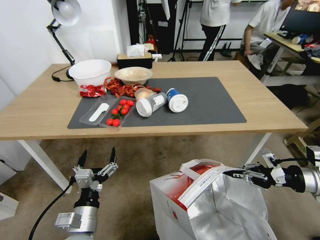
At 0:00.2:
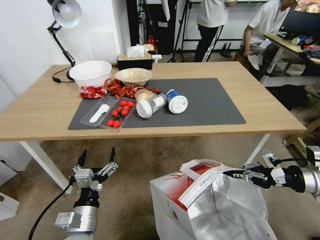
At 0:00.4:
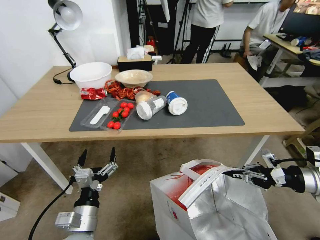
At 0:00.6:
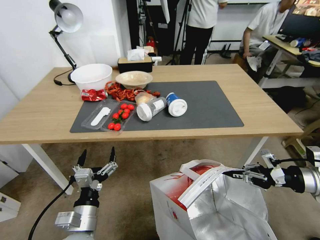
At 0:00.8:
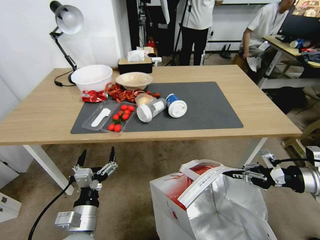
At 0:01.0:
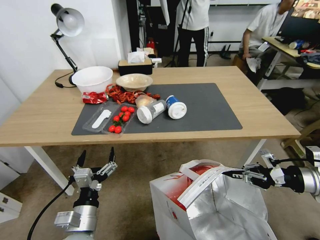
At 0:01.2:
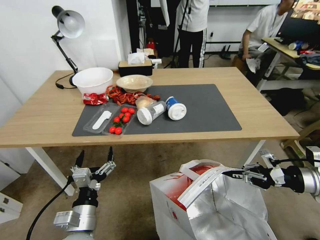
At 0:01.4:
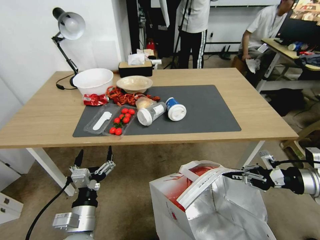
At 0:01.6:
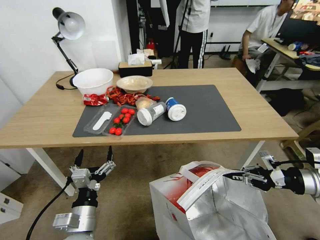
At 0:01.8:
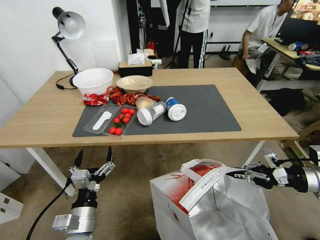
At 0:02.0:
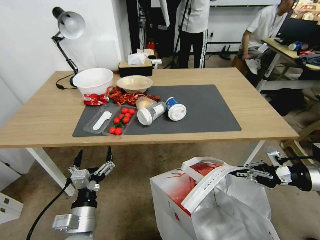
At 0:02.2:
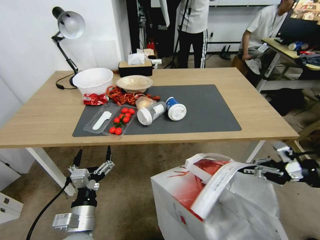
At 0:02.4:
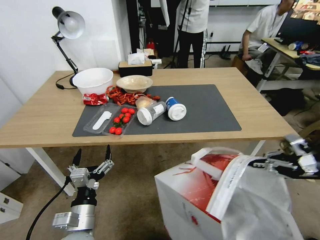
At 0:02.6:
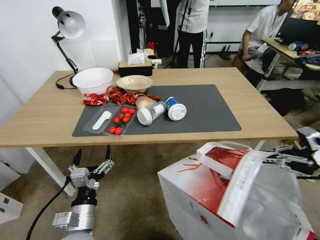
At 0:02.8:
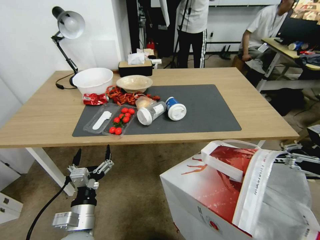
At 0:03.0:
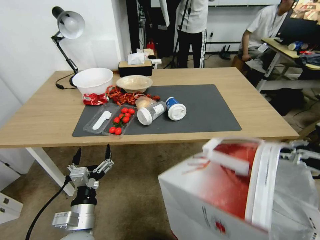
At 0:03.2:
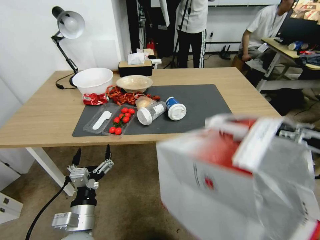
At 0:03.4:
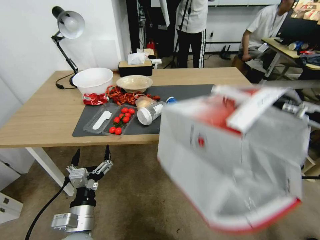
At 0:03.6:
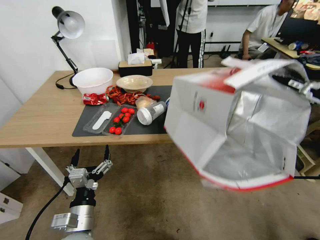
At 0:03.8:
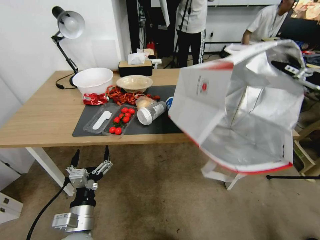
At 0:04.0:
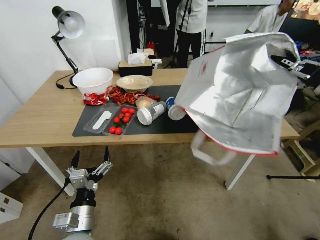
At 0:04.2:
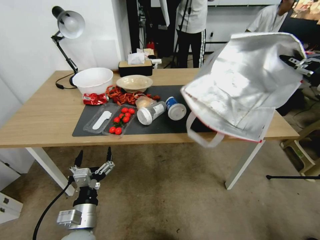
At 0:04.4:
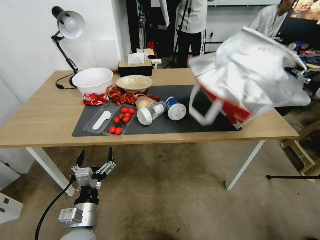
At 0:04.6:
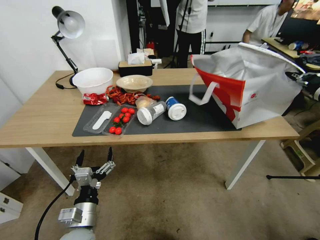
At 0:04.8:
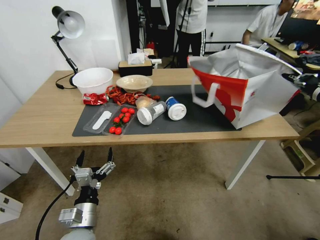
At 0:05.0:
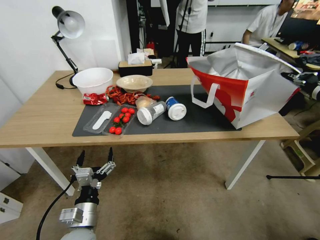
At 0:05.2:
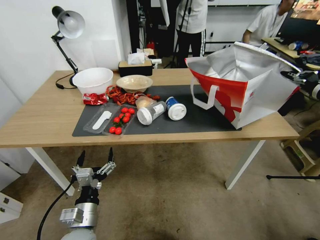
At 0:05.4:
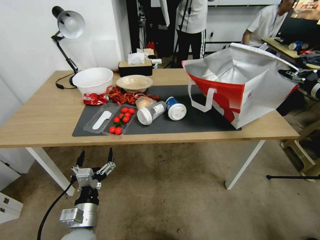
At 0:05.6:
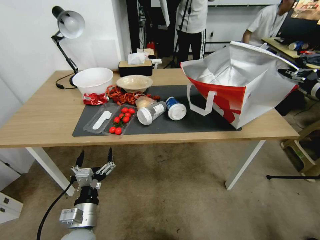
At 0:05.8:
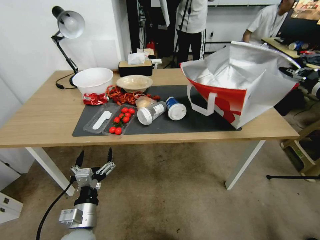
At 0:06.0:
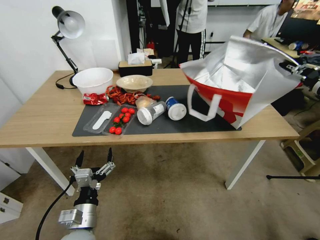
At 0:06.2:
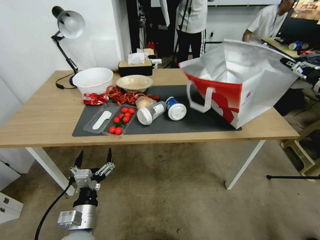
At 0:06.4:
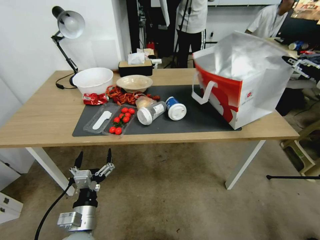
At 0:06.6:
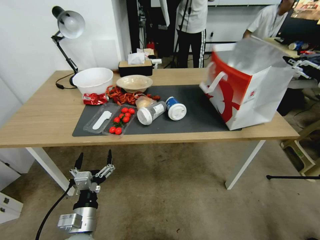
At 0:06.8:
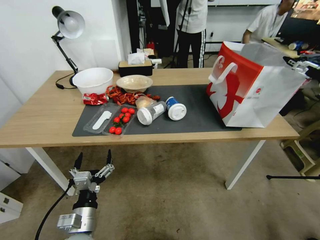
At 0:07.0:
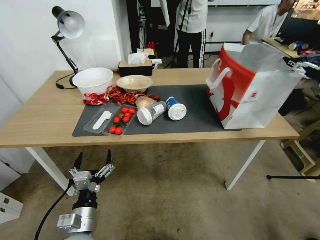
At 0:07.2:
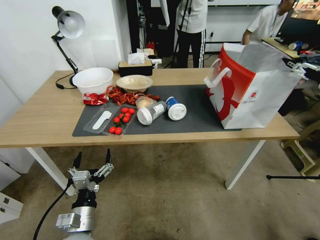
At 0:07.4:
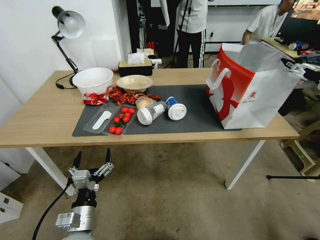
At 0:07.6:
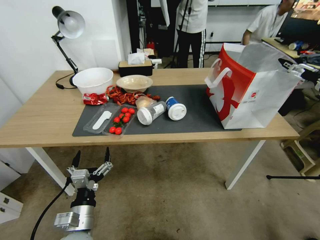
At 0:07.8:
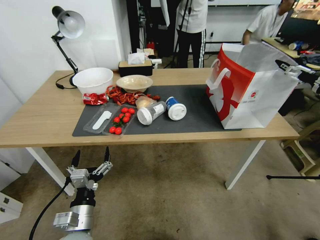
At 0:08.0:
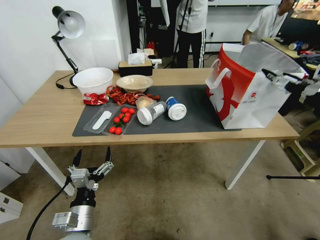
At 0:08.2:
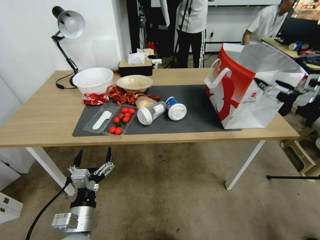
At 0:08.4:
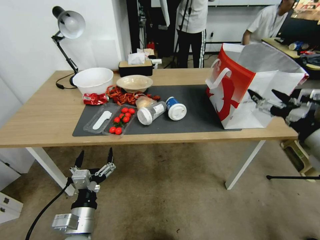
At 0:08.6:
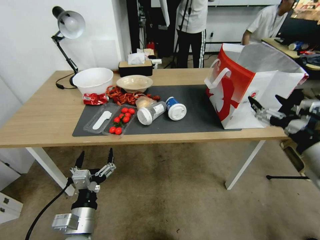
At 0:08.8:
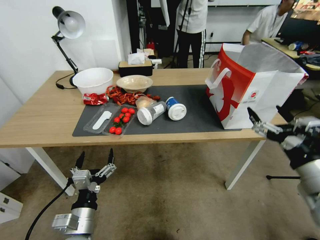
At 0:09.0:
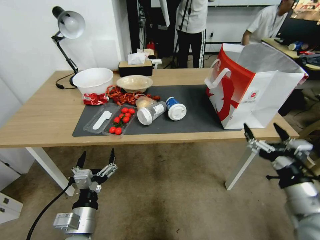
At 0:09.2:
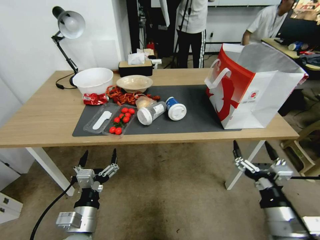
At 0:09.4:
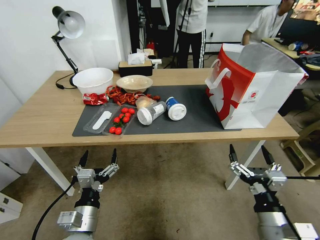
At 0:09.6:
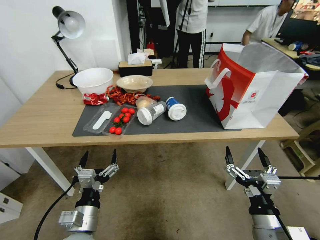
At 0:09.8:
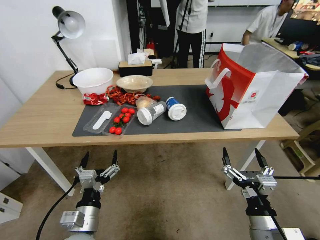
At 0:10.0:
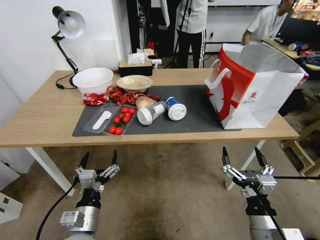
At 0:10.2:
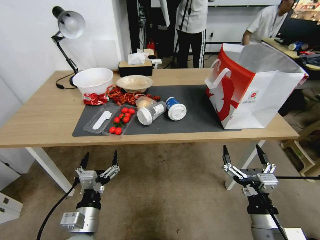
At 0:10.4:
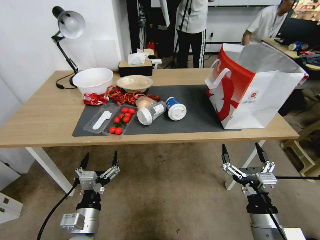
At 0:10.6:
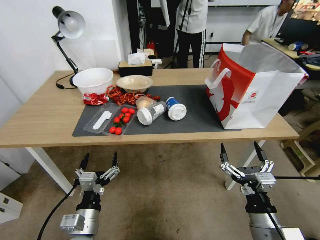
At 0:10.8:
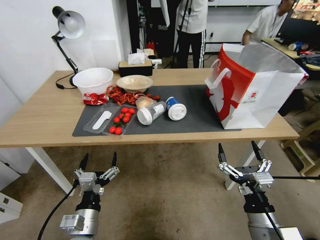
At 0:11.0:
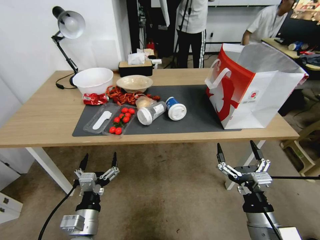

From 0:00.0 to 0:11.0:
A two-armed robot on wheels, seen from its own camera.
Task of the whole recording: Pick up the food delivery bag from the floor and place it on the table.
From 0:01.6 to 0:03.2: The right gripper travels upward and to the right by about 15 cm.
From 0:03.2 to 0:04.8: The right gripper moves to the left, about 5 cm.
From 0:04.8 to 0:06.2: The right gripper opens up.
From 0:06.2 to 0:07.8: The right gripper opens.
From 0:07.8 to 0:09.4: The right gripper moves downward, backward and to the left, some 35 cm.
From 0:09.4 to 0:11.0: The grippers make only small movements.

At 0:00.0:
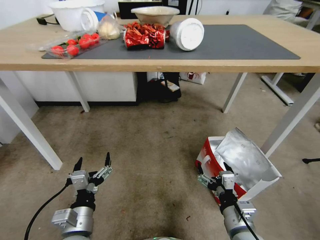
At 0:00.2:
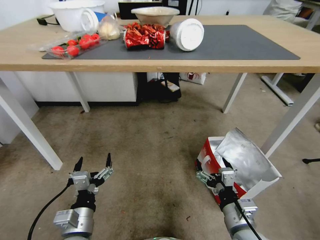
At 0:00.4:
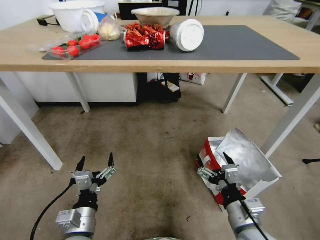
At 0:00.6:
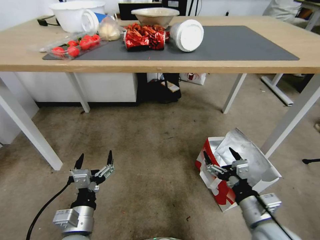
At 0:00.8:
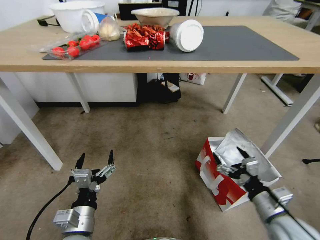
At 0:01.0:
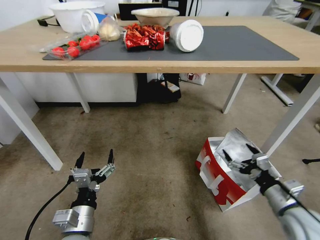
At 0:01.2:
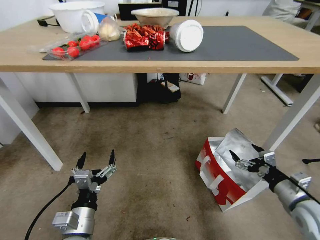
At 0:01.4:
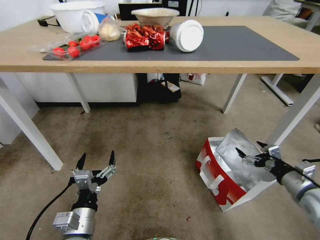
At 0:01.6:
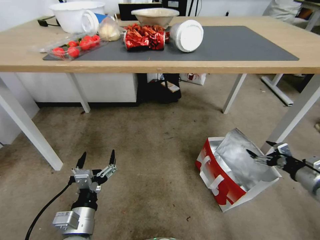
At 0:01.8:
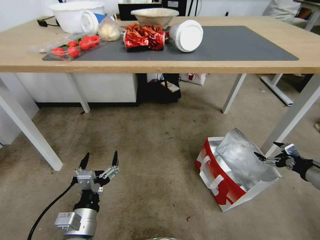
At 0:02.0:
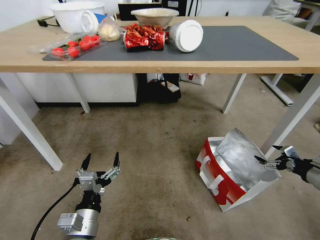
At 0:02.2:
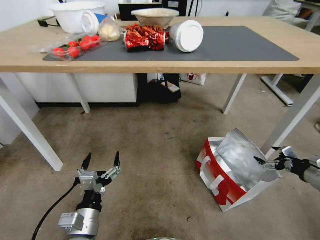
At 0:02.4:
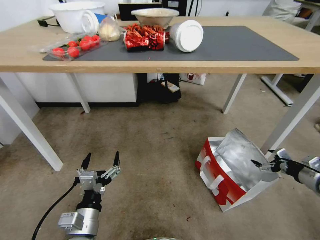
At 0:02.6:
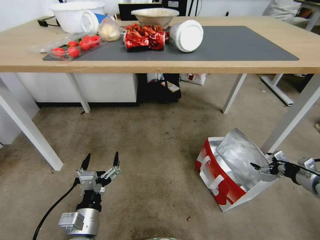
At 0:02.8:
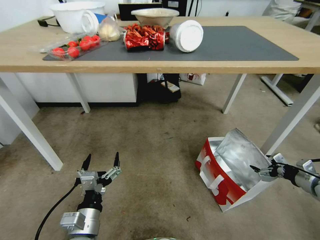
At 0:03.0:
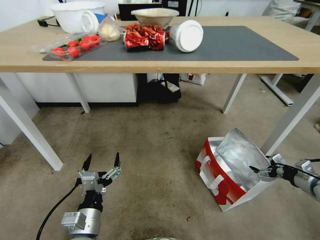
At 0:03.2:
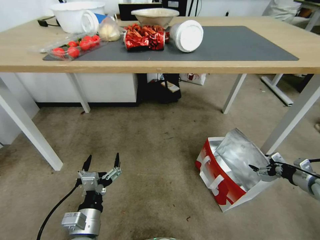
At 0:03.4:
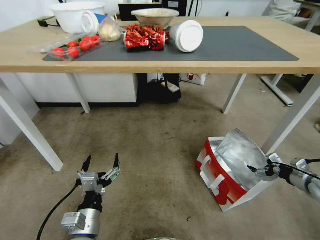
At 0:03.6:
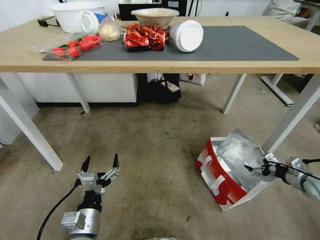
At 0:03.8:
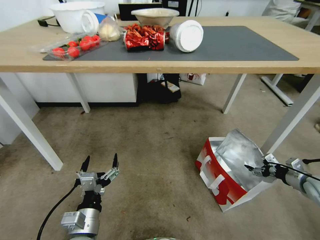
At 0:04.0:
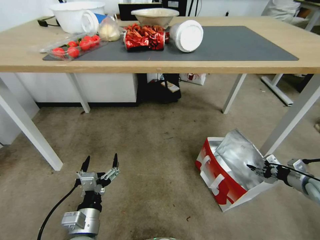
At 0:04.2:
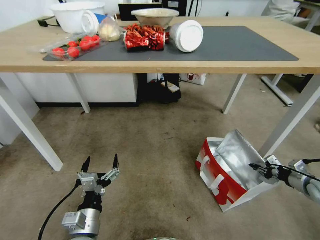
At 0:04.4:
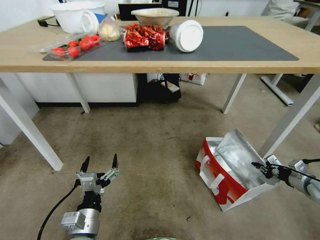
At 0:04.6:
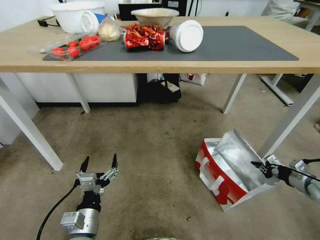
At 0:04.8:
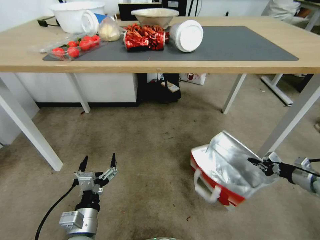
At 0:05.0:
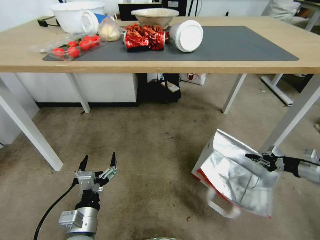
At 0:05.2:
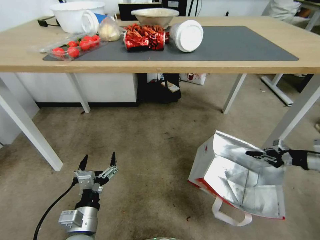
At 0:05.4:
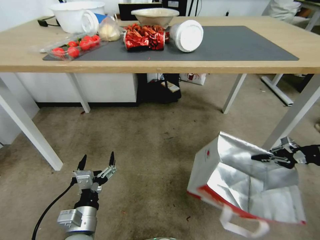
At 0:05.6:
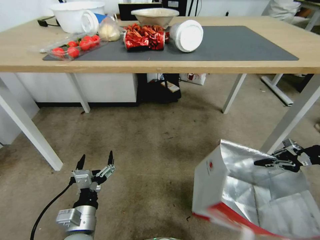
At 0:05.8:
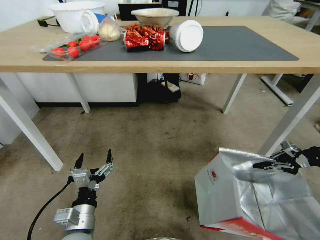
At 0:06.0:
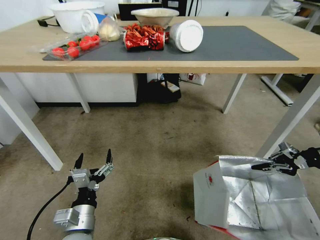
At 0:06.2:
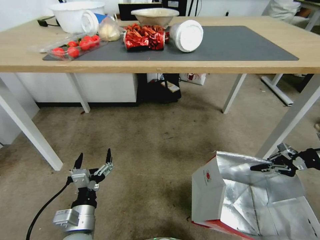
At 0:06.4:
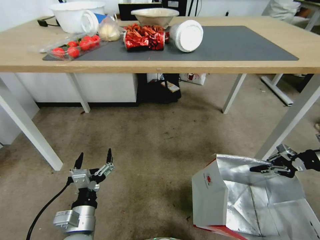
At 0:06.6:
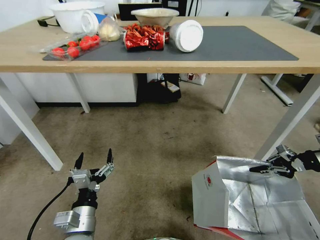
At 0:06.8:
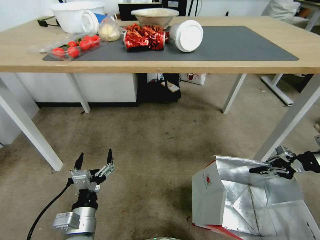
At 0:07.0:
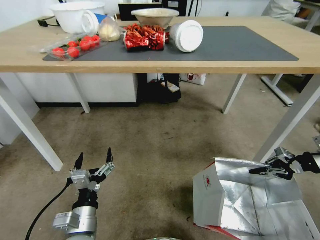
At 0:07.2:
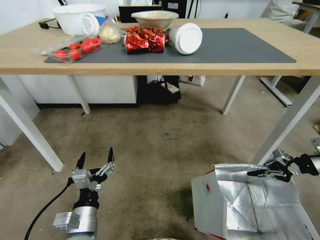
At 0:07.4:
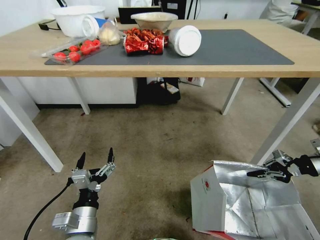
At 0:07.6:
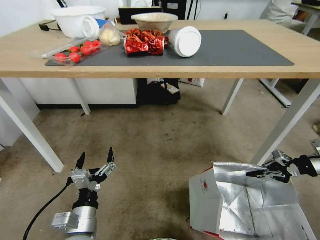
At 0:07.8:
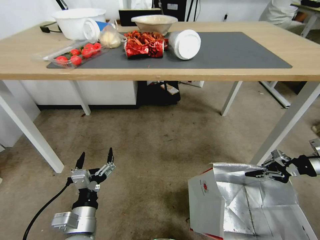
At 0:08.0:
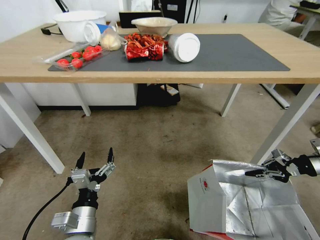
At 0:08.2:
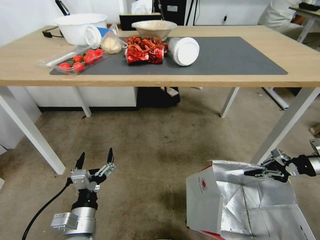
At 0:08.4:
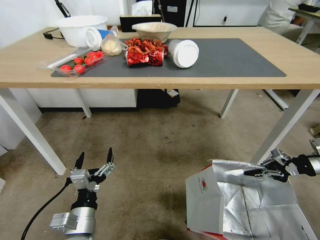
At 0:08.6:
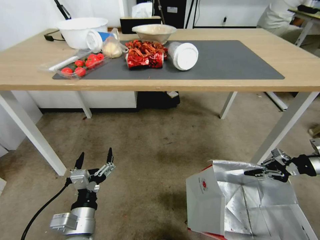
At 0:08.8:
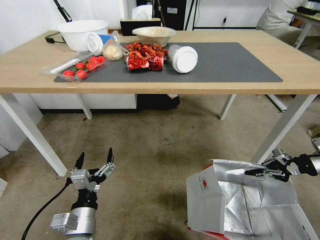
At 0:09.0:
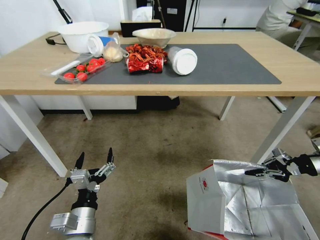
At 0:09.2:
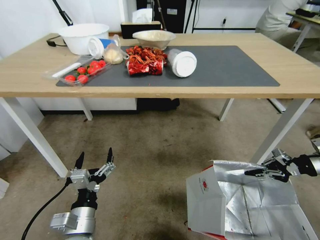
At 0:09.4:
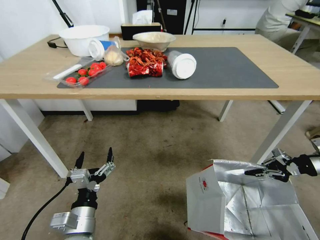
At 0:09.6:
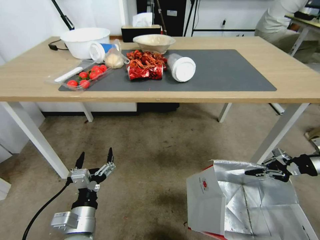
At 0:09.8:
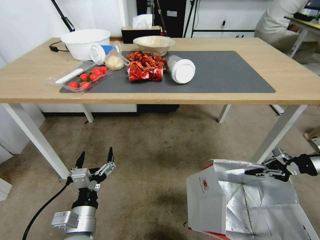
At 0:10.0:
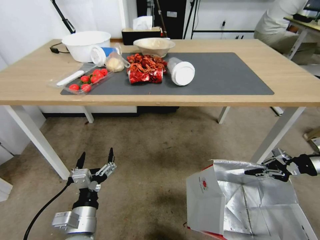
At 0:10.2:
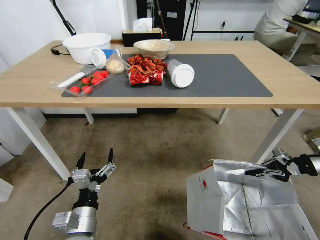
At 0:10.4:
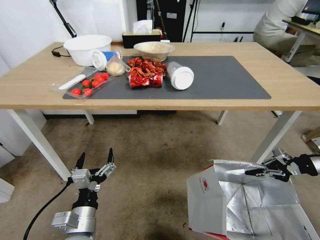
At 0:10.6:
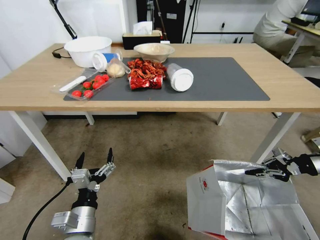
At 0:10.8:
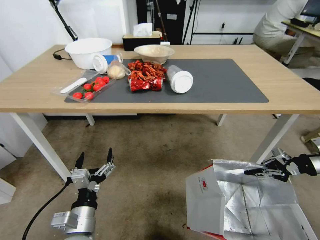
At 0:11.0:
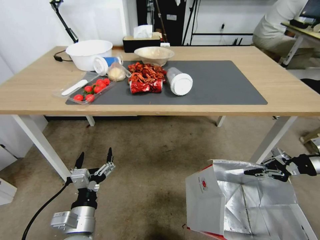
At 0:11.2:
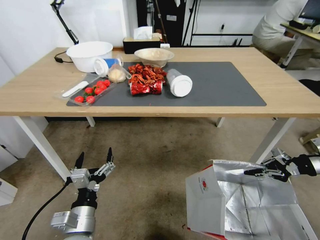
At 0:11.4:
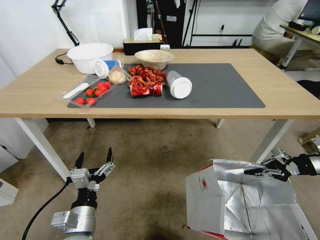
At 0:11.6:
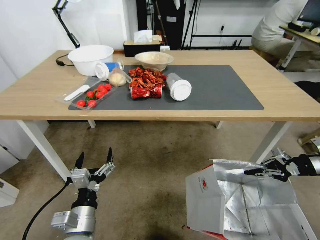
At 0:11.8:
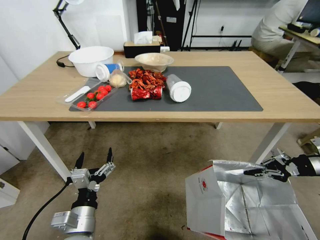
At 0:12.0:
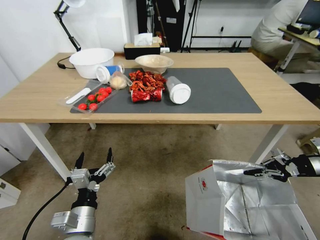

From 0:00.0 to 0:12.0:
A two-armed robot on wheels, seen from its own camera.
Task of the whole recording: Pick up the food delivery bag from the floor and place it on the table.
From 0:00.0 to 0:01.6: The right gripper heads to the right and forward, covering roughly 30 cm.
From 0:01.6 to 0:03.0: The right gripper travels downward and to the right by some 5 cm.
From 0:03.0 to 0:04.4: The right gripper closes.
From 0:04.4 to 0:06.0: The right gripper shifts some 15 cm upward and forward.
